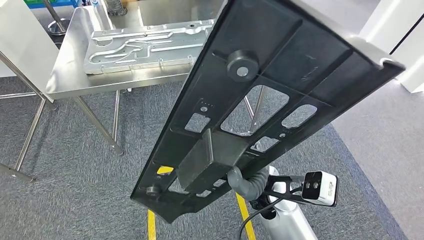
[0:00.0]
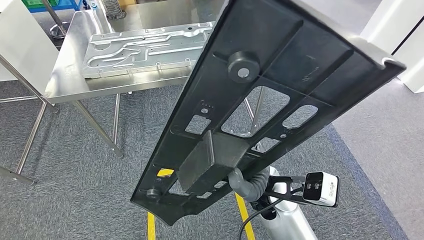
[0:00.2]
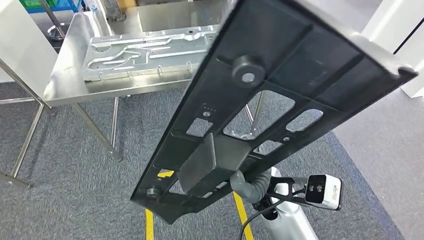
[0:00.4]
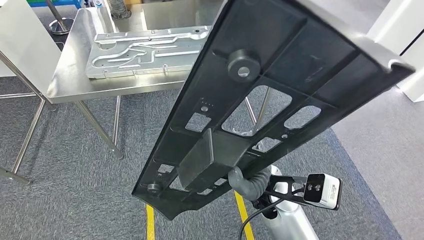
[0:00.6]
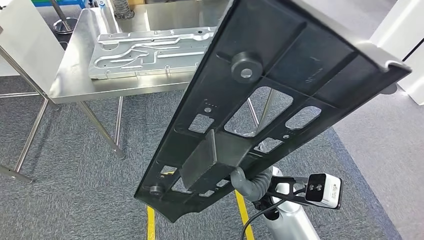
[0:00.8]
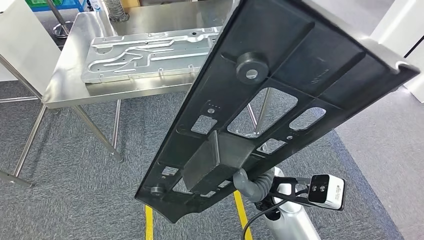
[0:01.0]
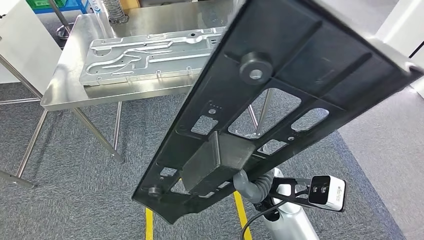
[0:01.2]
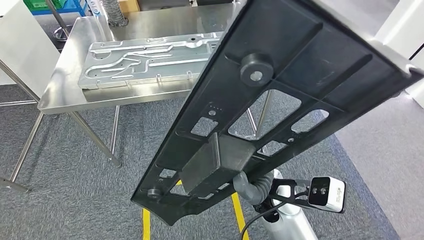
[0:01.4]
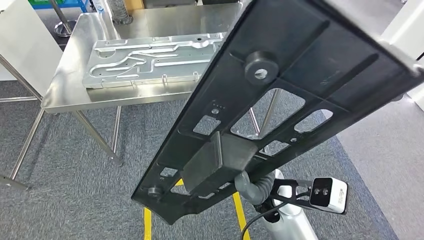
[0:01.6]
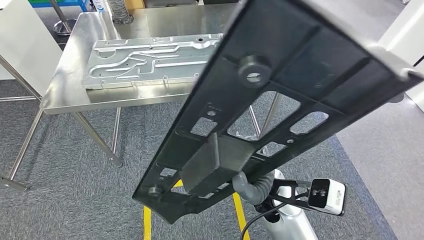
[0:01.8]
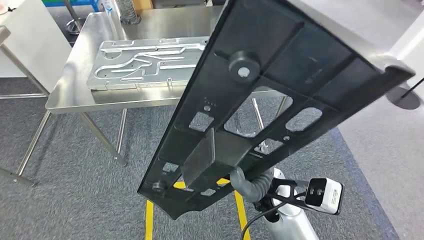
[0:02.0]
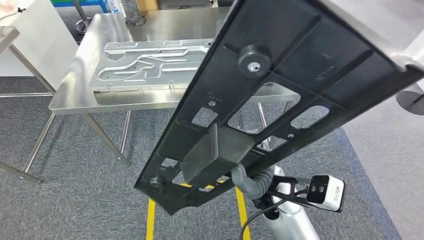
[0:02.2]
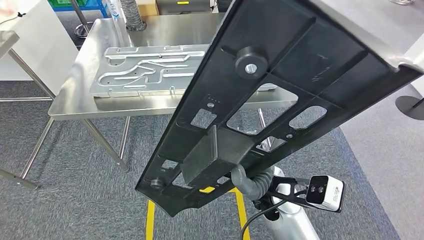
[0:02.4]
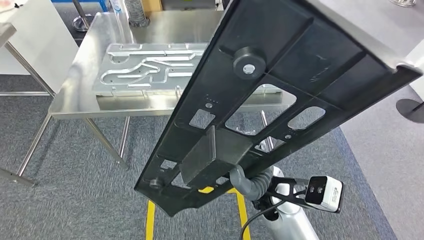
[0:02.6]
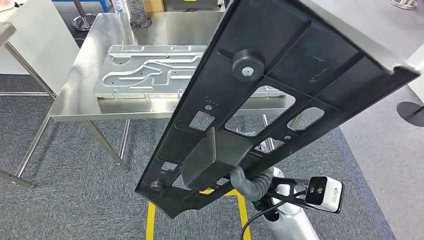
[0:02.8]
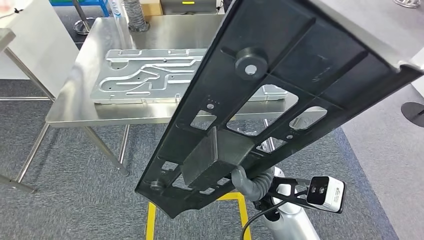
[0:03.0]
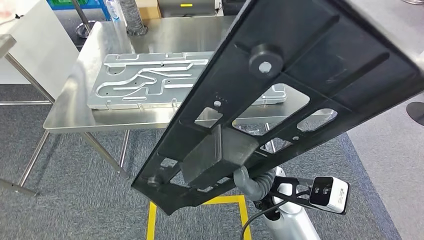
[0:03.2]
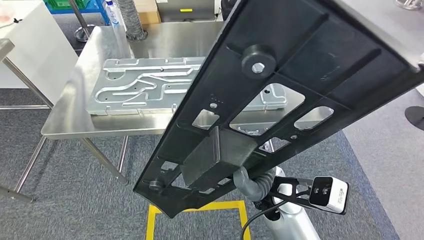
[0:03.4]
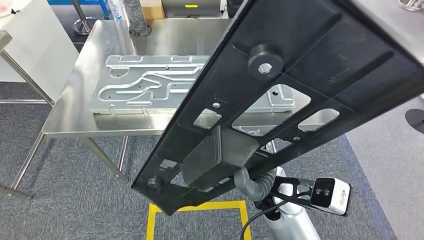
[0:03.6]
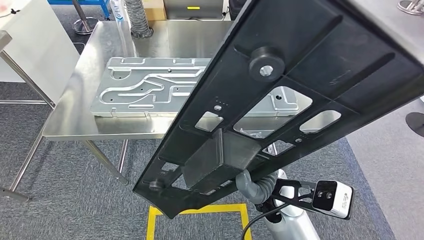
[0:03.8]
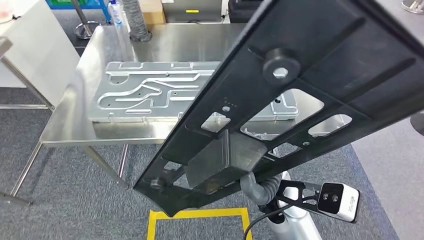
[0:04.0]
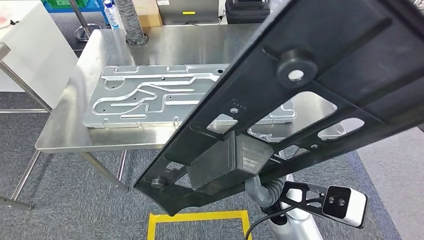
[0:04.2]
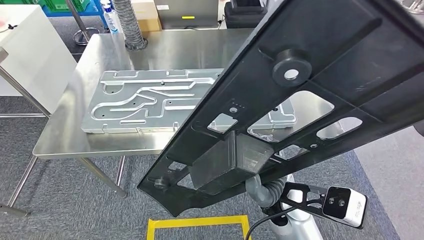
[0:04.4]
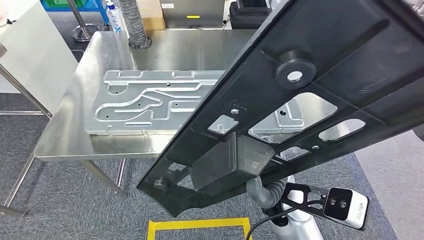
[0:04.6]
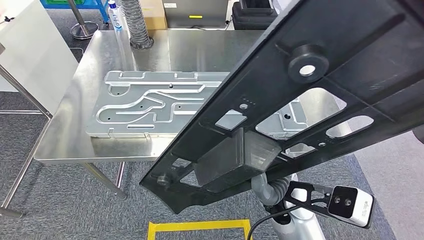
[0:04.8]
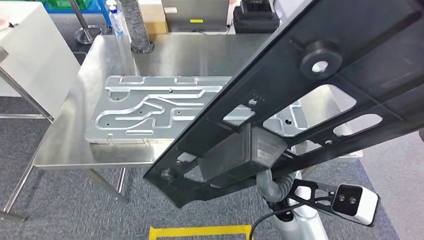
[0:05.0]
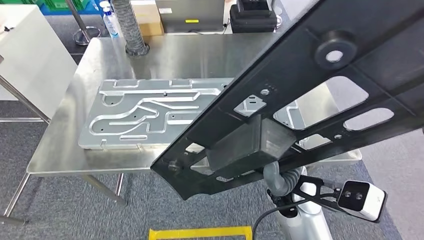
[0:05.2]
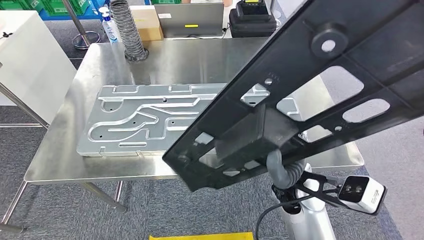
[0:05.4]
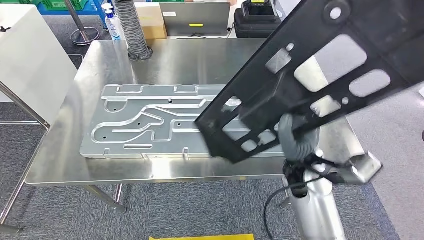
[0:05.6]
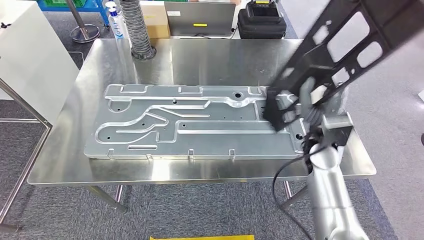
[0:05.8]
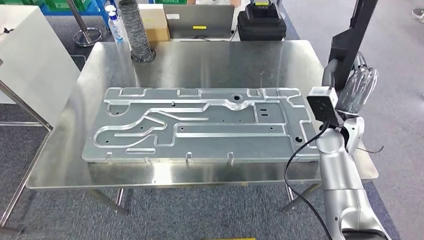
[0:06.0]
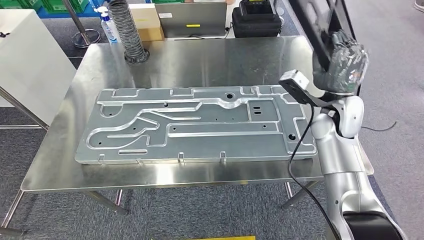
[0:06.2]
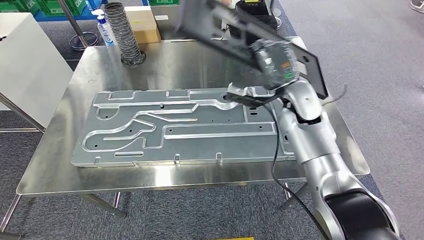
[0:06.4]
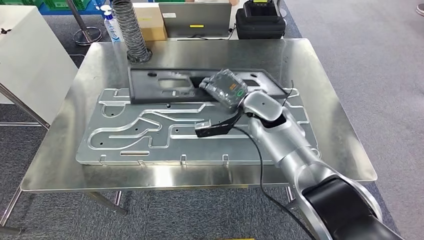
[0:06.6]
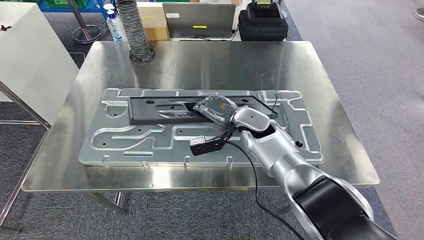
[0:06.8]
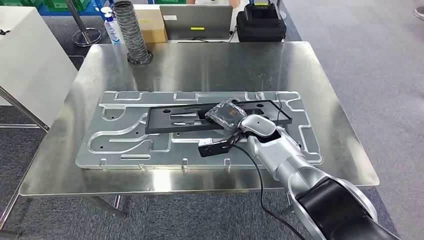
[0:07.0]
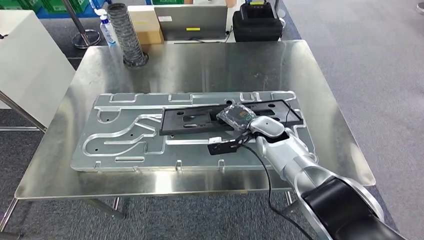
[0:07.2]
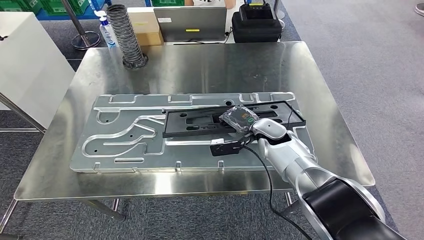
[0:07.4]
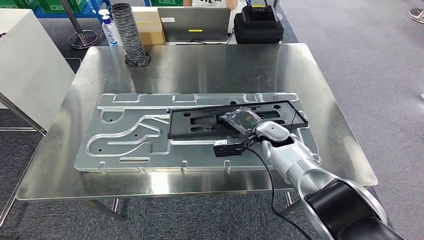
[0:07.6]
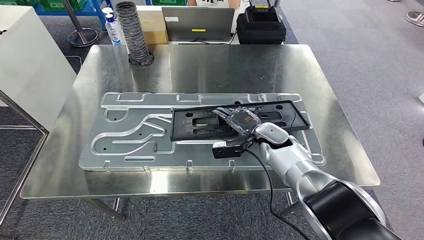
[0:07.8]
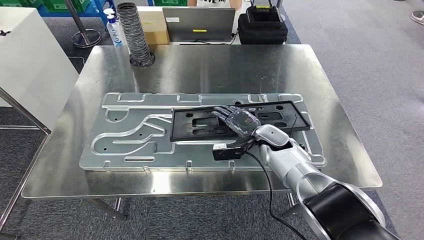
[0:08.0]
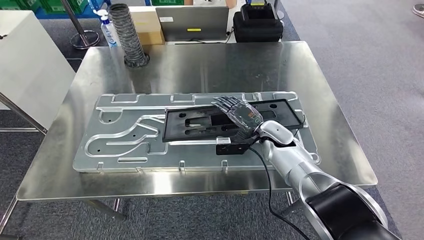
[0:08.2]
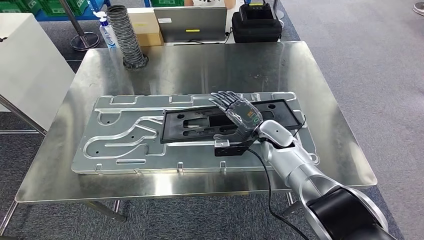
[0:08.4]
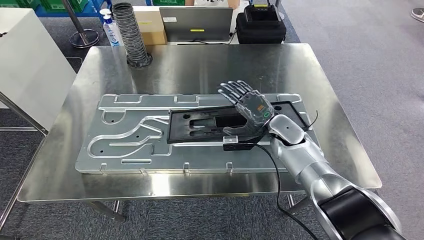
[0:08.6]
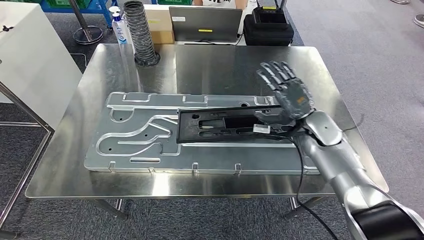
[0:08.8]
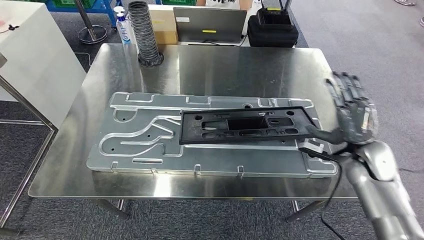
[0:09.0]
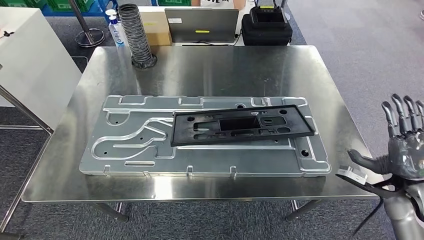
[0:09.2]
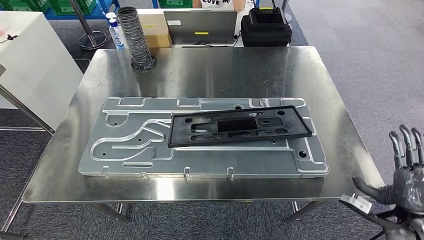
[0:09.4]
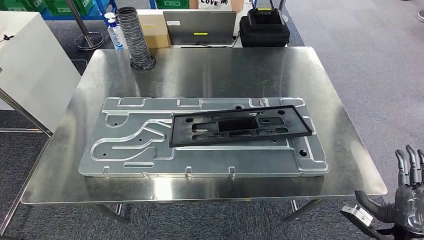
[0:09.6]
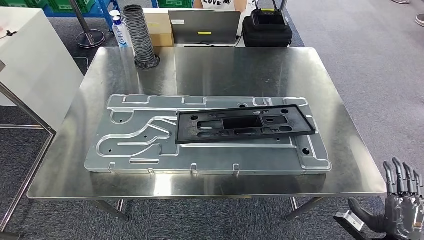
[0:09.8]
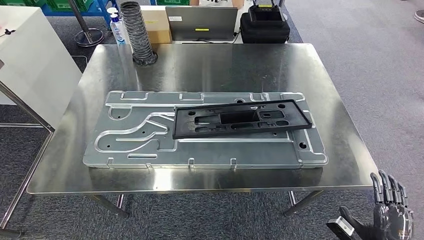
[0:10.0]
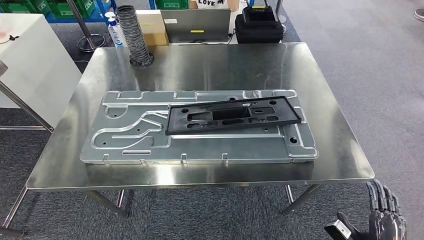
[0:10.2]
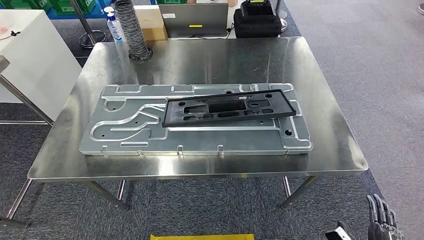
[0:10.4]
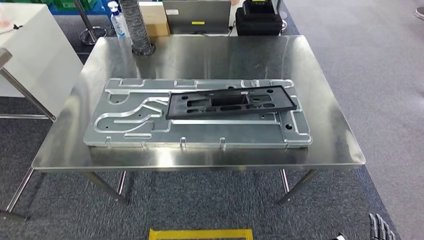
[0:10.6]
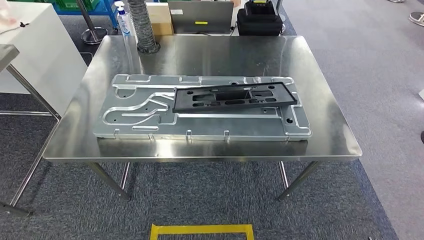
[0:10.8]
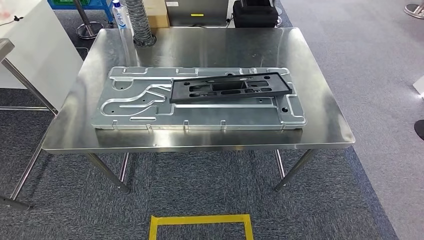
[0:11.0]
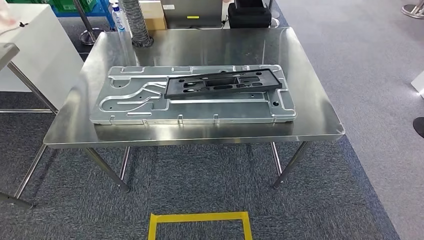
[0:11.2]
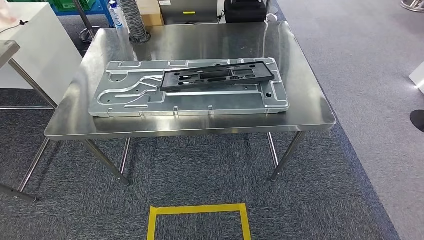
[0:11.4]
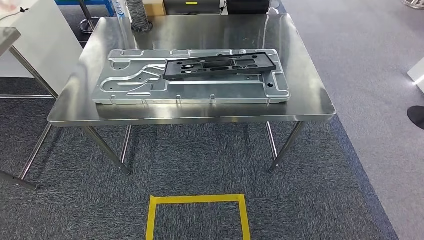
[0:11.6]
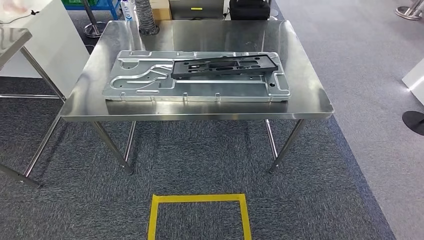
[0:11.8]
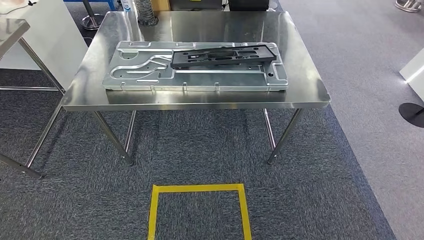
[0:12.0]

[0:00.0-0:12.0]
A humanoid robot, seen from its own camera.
Step, 0:00.0 to 0:03.6: Move the large material to the workbench.
Step, 0:06.0 to 0:09.0: Insert the large material into the corresponding slot on the workbench.

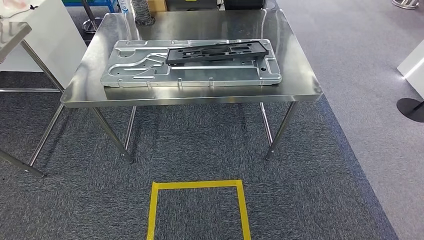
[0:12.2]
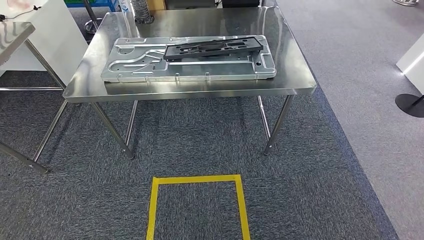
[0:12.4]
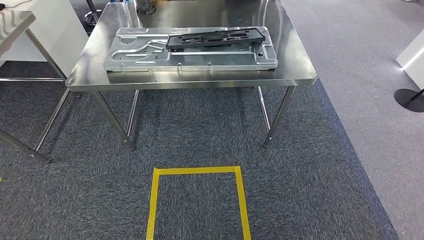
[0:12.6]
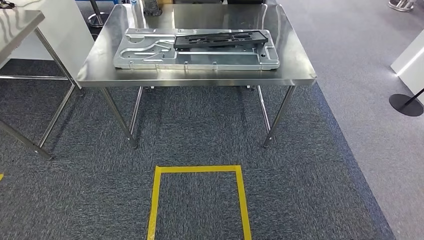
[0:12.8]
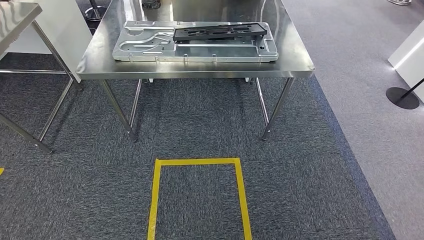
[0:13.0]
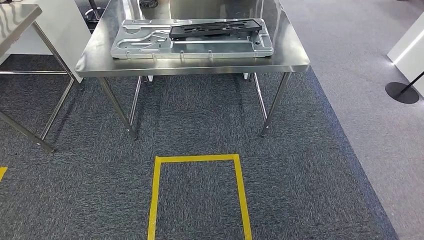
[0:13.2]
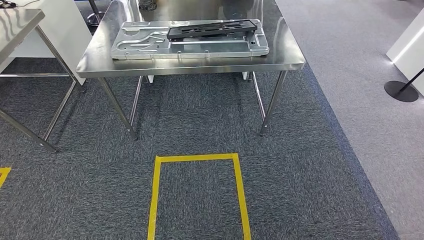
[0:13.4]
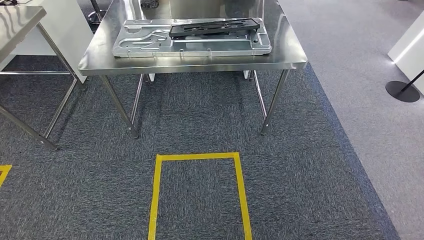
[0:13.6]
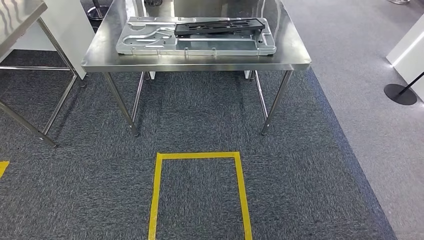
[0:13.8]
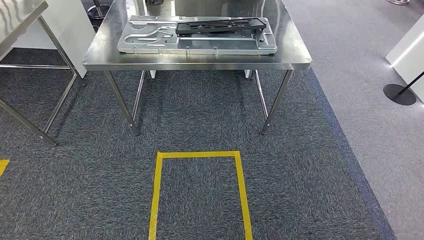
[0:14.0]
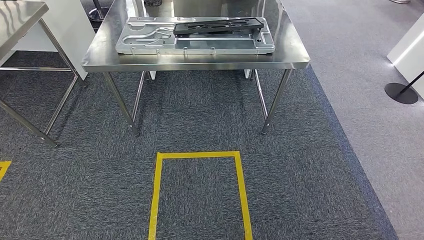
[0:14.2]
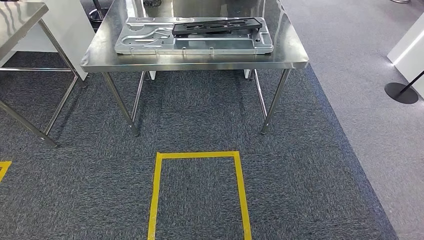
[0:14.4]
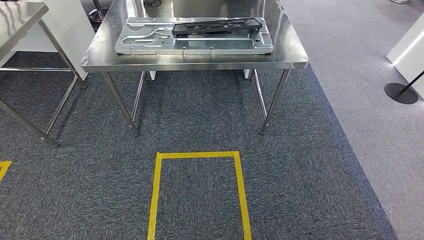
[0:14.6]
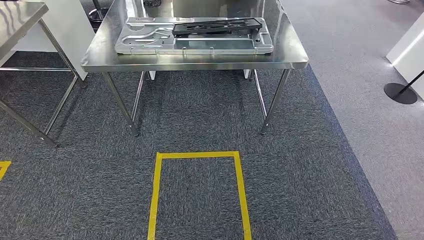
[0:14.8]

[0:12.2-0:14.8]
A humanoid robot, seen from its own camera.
Step, 0:12.2 to 0:14.6: Move to the initial position of the shelf.
0:13.4 to 0:14.8: The hands stay close to where they were, moving slightly.
